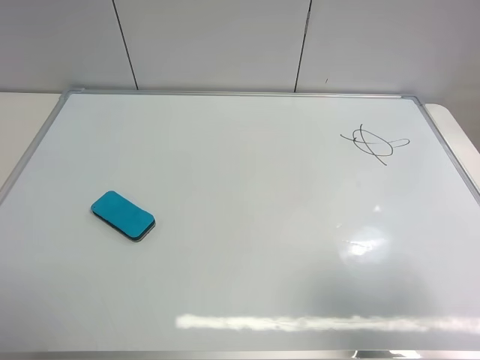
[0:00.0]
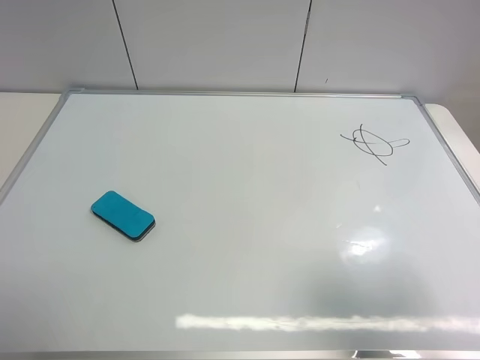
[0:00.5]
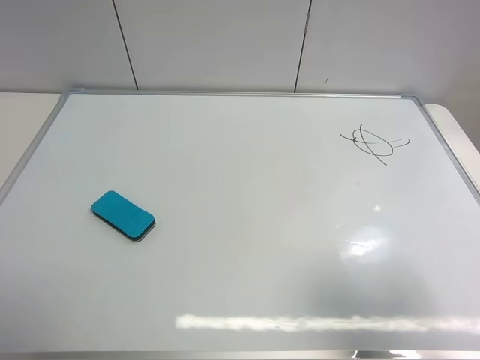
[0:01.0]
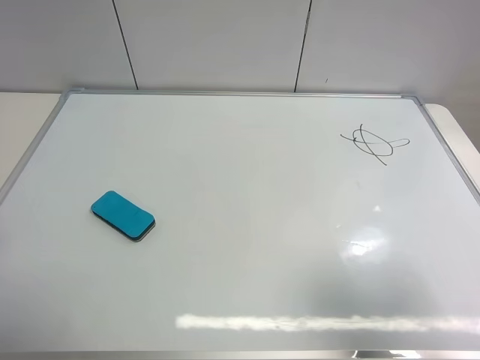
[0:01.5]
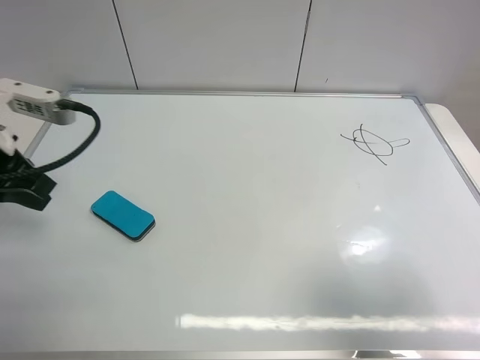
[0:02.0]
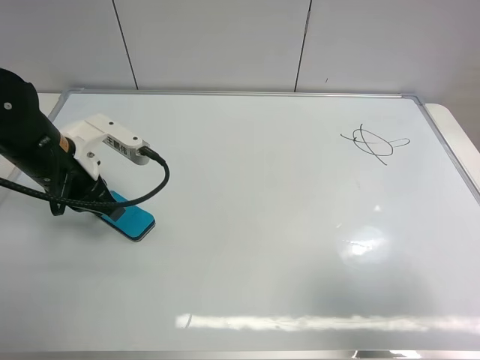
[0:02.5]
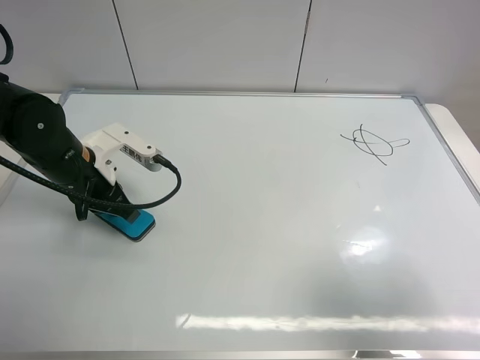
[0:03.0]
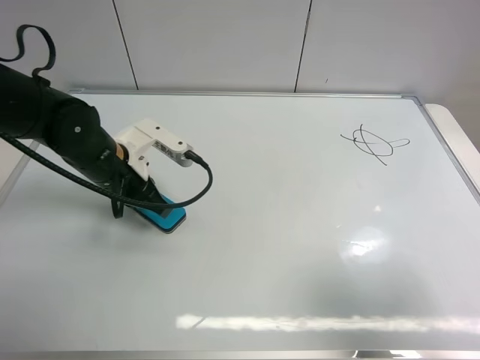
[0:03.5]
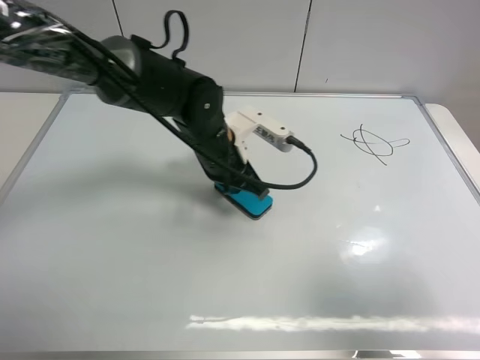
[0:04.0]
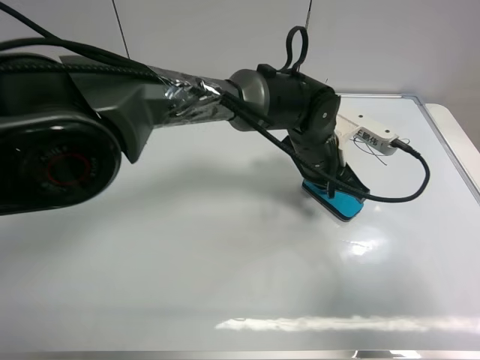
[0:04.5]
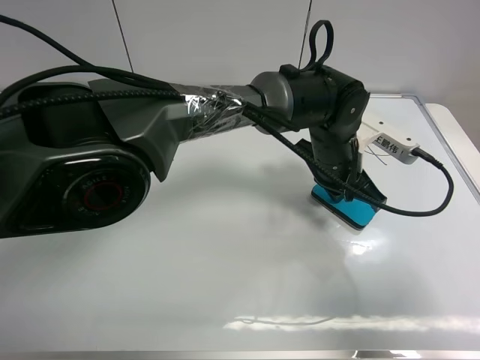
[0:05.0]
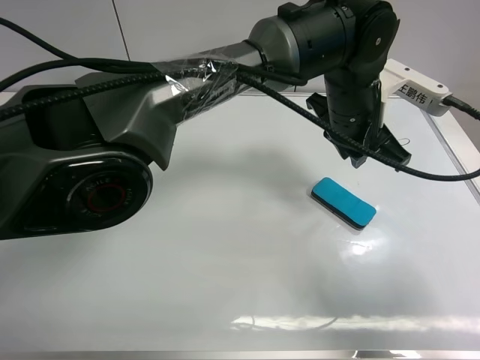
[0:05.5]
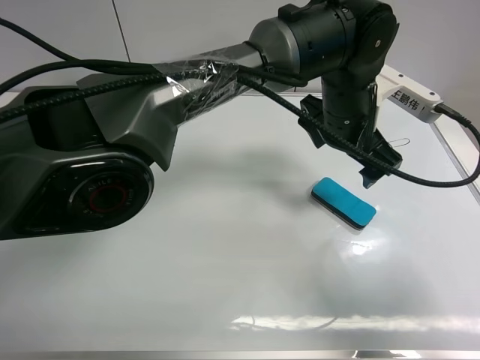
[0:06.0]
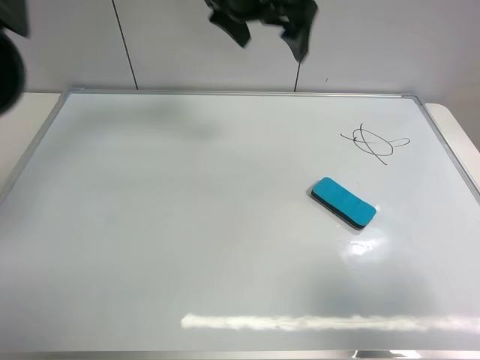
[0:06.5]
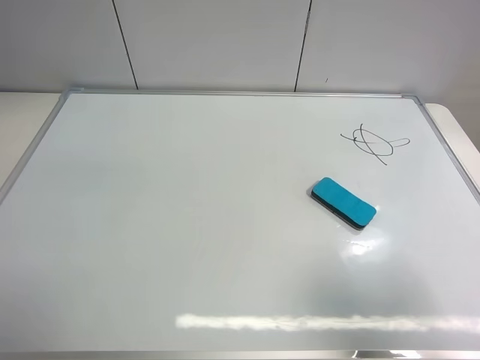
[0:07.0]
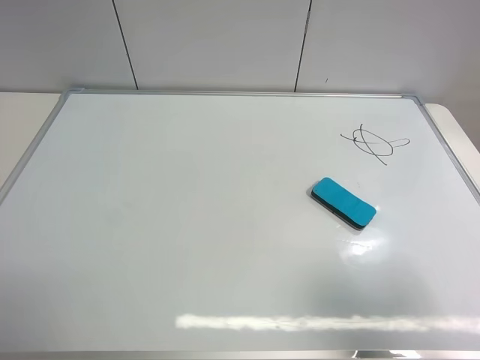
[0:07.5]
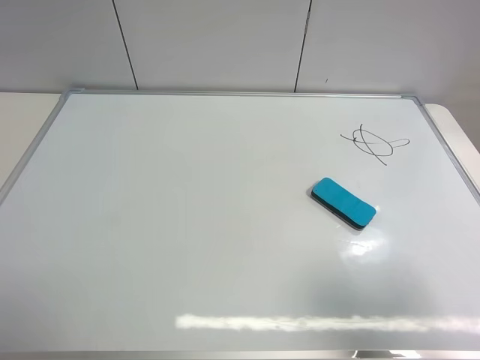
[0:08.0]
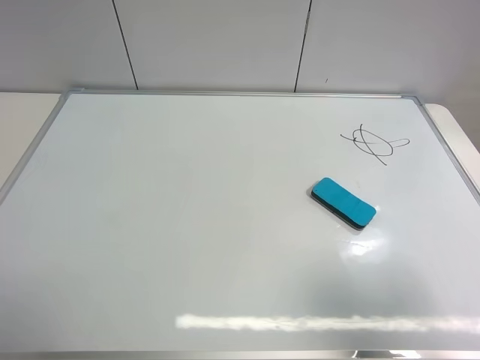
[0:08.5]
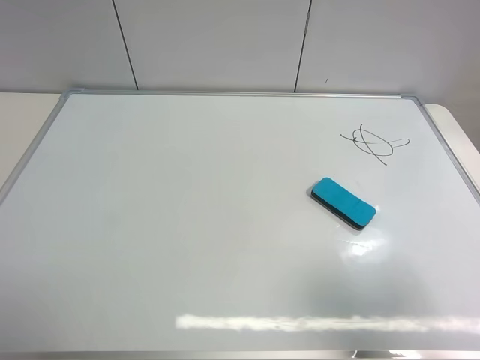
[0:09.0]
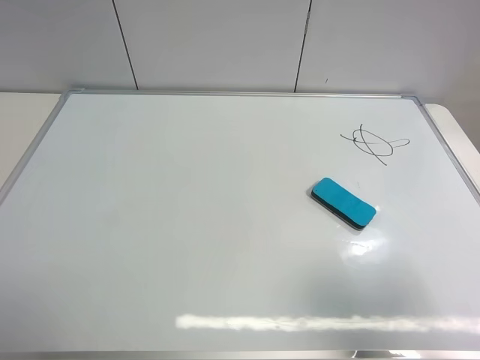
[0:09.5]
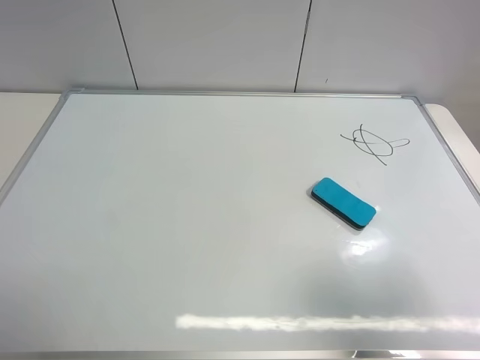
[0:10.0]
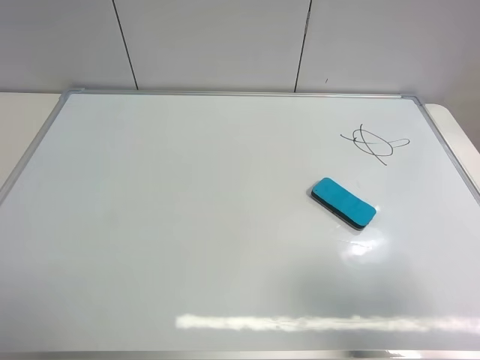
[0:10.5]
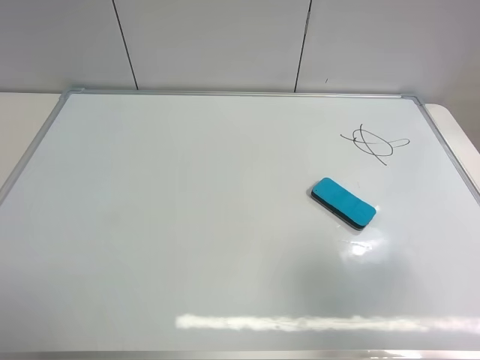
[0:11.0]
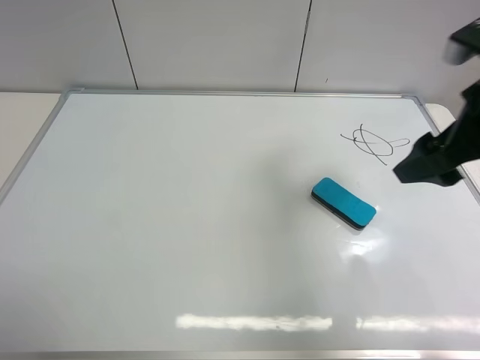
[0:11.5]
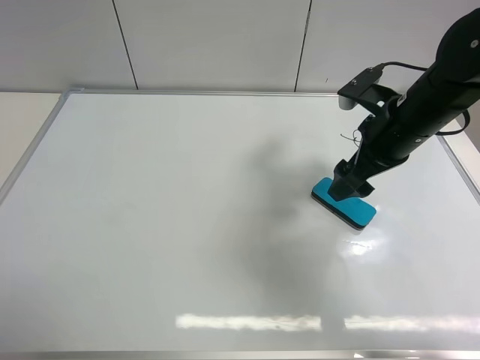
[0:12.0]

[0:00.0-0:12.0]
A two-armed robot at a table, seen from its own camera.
Task of the whole recording: use the left gripper to place the eraser in the right, use the right gripper to pick up the eraser, wipe the notes on the whiteboard clean, and then put it down.
Step, 0.0 to 5.0 s: Move the board eraser to the right of the whiteboard with left gripper.
0.0 to 2.0 s: The left gripper is displaced forward by some 20 cm, and closes up.
2.0 to 4.0 s: The left gripper travels to the right, forward and downward by about 30 cm.
4.0 to 6.0 s: The left gripper goes roughly 15 cm to the right and upward, and opens up.
6.0 to 8.0 s: The left gripper moves to the left, backward and upward, some 60 cm.
10.0 to 12.0 s: The right gripper heads forward, covering roughly 30 cm.

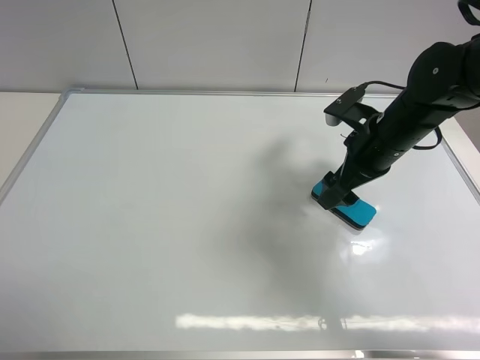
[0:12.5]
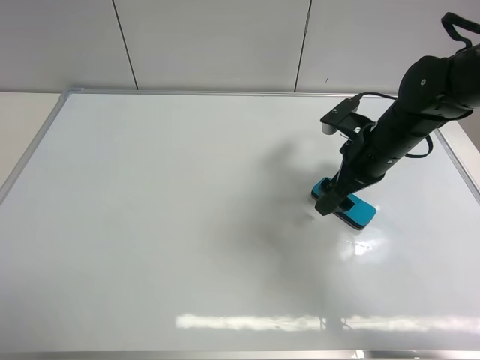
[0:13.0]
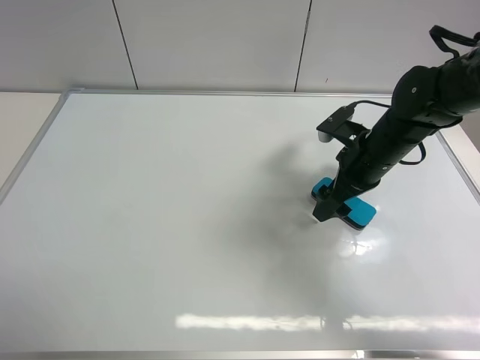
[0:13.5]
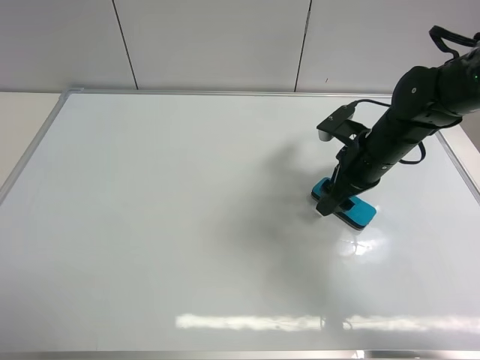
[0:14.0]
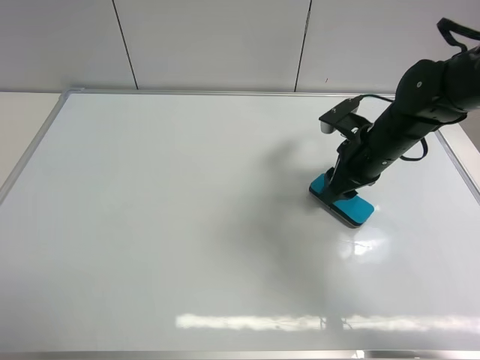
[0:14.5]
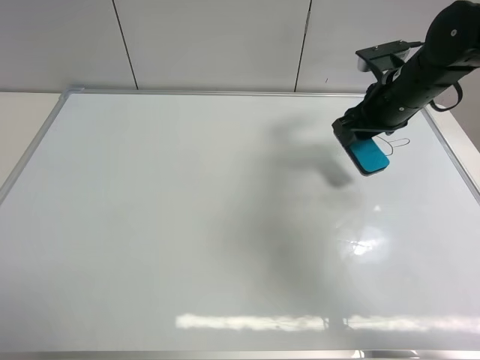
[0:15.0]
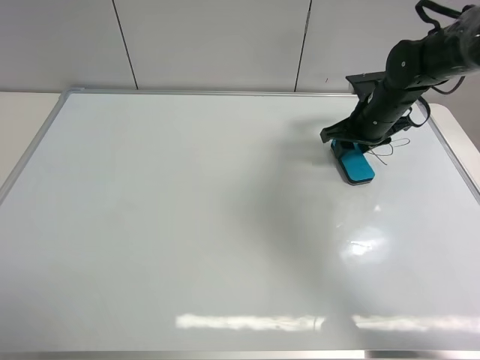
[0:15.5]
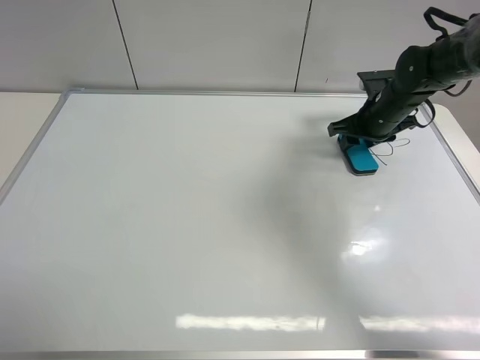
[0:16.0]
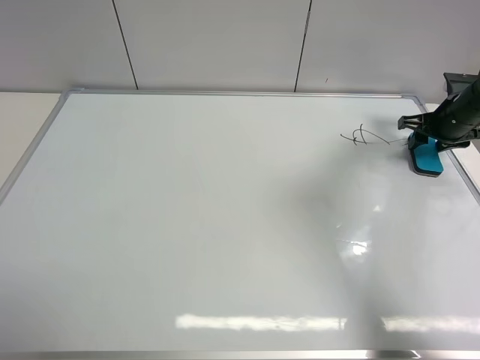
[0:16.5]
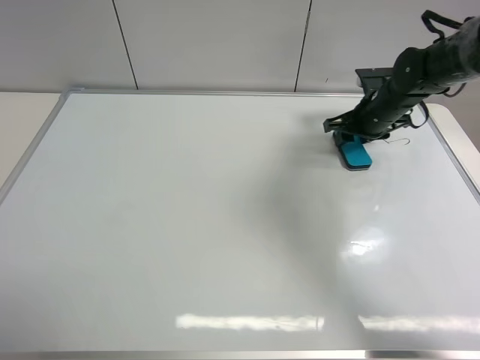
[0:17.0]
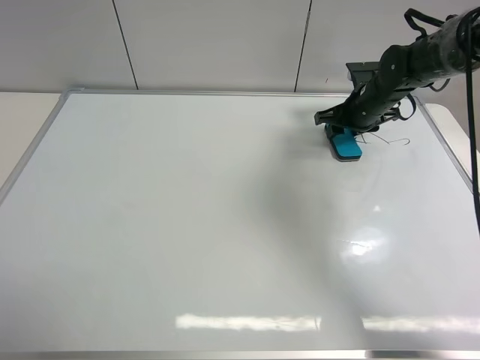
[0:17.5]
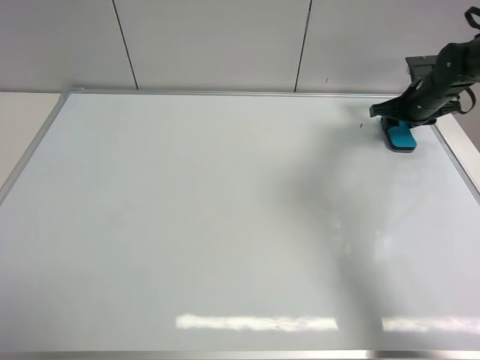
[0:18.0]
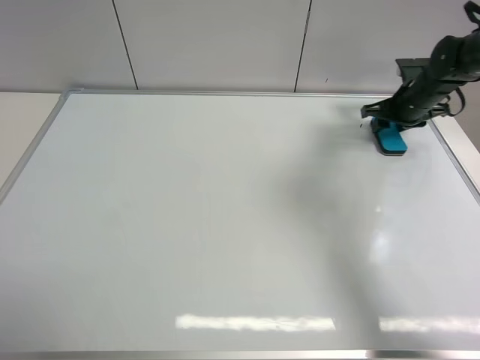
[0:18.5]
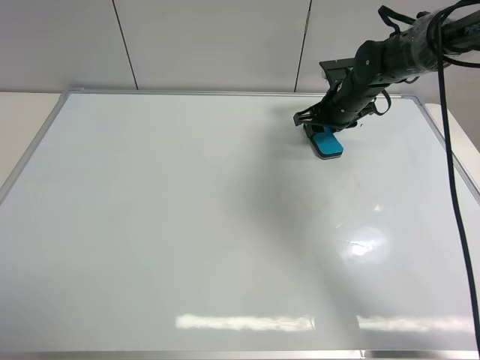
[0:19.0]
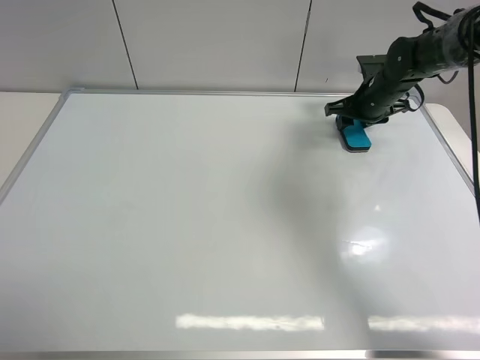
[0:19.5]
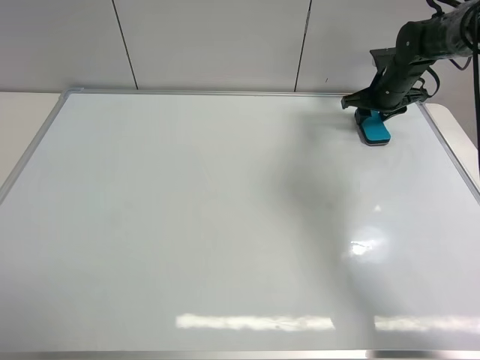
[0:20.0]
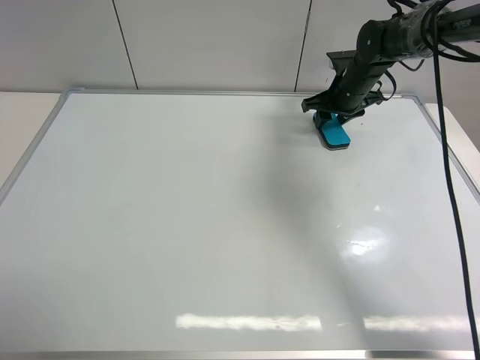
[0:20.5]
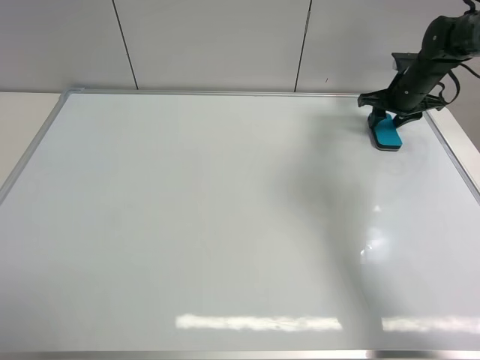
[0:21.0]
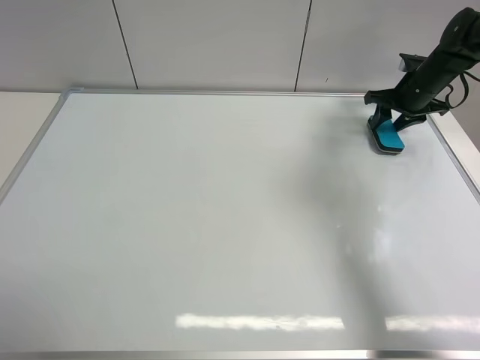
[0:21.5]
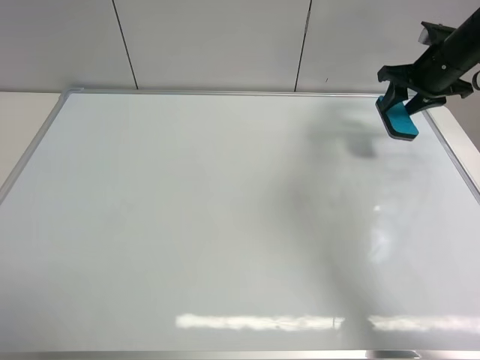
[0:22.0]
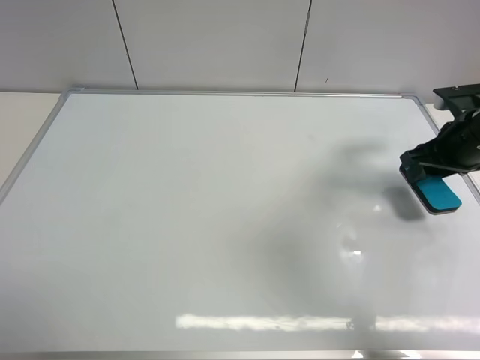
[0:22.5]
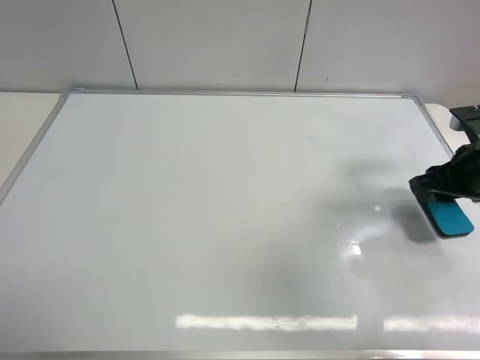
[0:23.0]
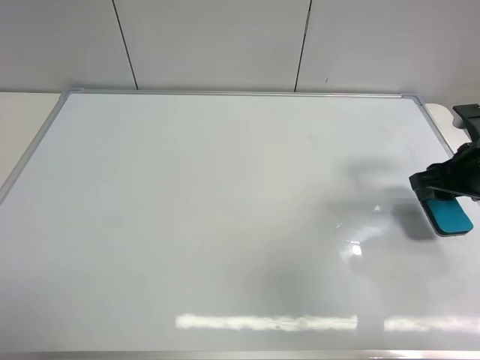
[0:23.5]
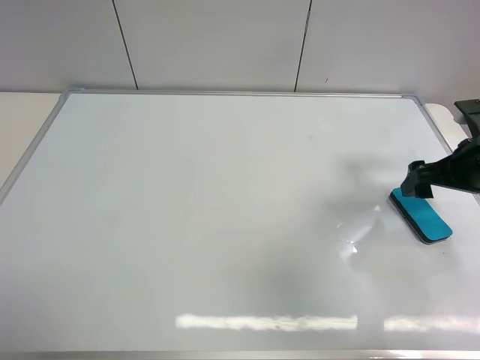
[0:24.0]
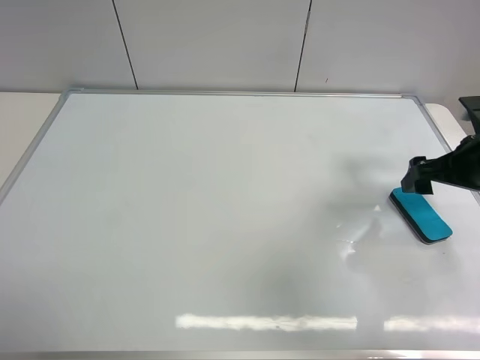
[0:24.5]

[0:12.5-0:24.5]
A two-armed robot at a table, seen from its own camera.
Task of the whole recording: use the left gripper to place the eraser in the right, use the right gripper to pick up the eraser, wipe the notes on the whiteboard clean, and then put it down.
Step, 12.5 to 14.5 s: Pick up the board eraser with right gripper.
Step, 15.0 to 21.0 s: Wipe off the writing on the board with right gripper.
Step, 21.5 to 23.5 s: Move the board eraser to the right of the whiteboard with right gripper.
12.5 to 14.5 s: The right gripper closes.
14.5 to 16.5 s: The right gripper is displaced to the right and forward by about 20 cm.
16.5 to 18.5 s: The right gripper goes left and right, roughly 15 cm each way, reversing 2 times.
18.5 to 20.5 s: The right gripper goes left and right, about 10 cm each way, reversing 2 times.
20.5 to 22.5 s: The right gripper moves backward and to the right, some 20 cm.
22.5 to 24.5 s: The right gripper opens.

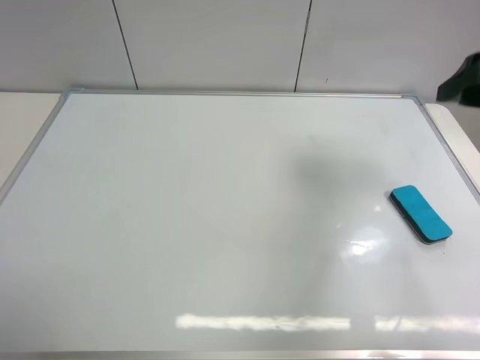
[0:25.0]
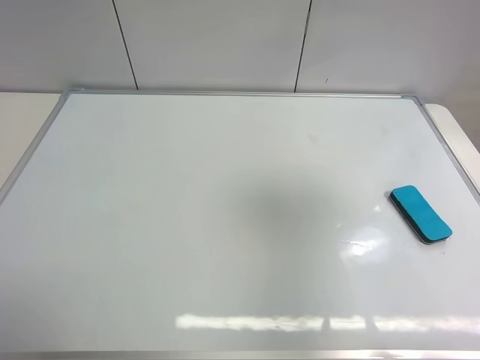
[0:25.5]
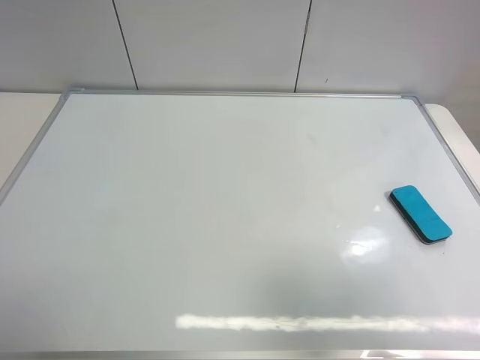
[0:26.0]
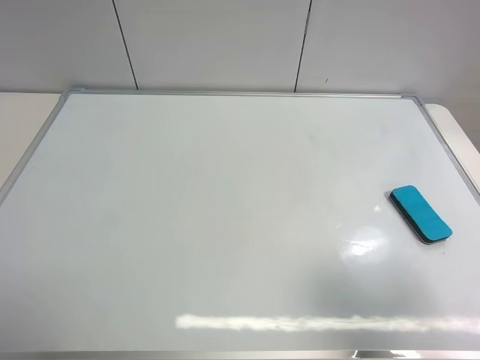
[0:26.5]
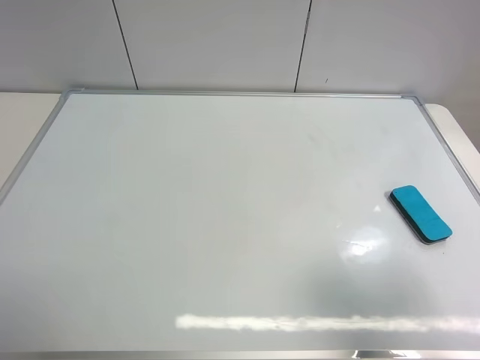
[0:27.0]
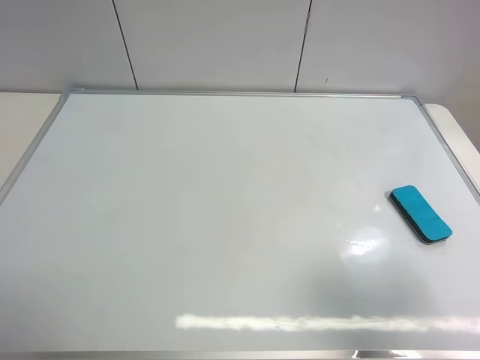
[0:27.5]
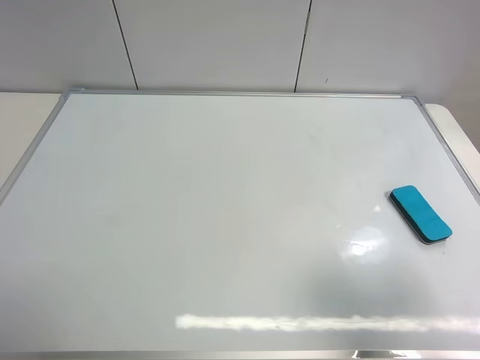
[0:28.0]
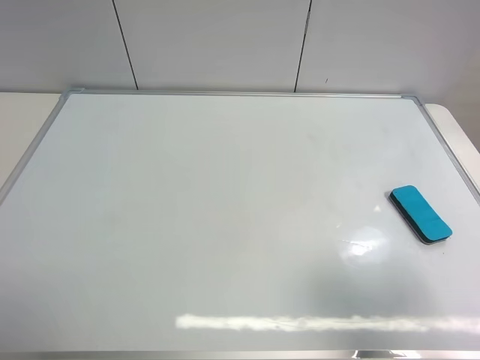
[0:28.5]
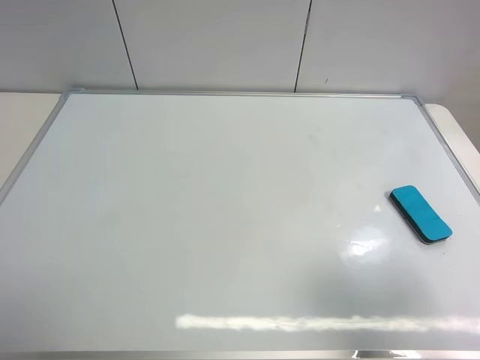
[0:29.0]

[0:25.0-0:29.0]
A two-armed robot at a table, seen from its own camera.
Task of the whole recording: use the left gripper to place the eraser in the right, use the right gripper to pick up the eraser, wipe the notes on the whiteboard clean, and then put it down.
25.0 to 27.0 s: The right gripper is displaced backward by about 20 cm.
27.0 to 29.0 s: Both grippers stay about where they are.
